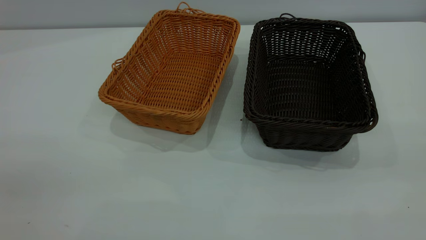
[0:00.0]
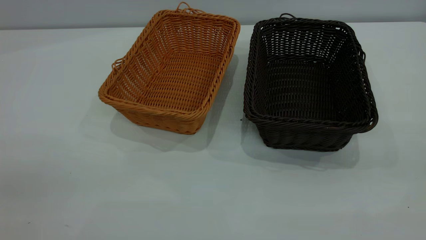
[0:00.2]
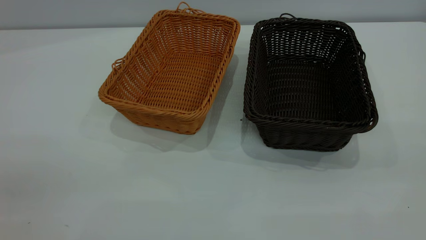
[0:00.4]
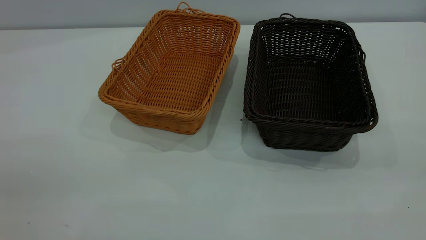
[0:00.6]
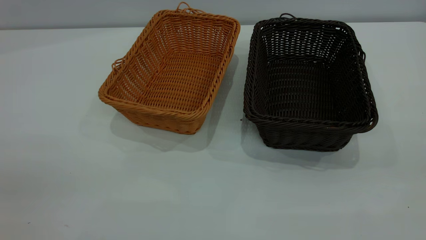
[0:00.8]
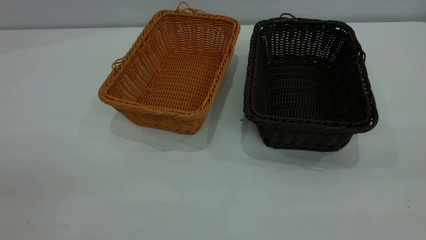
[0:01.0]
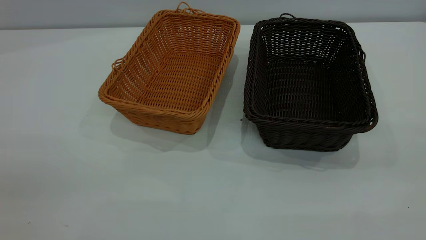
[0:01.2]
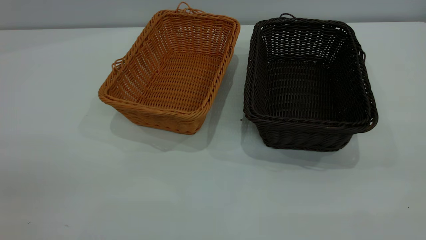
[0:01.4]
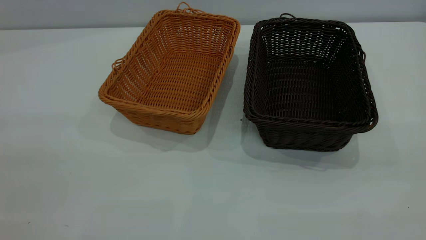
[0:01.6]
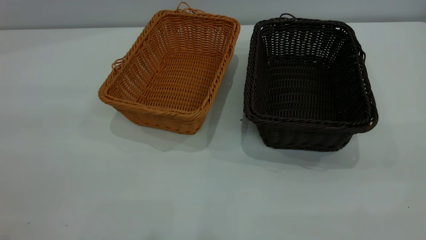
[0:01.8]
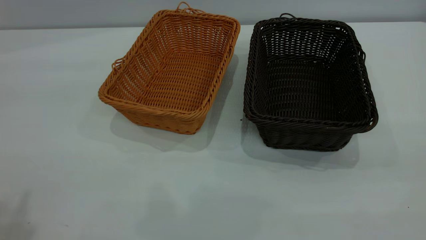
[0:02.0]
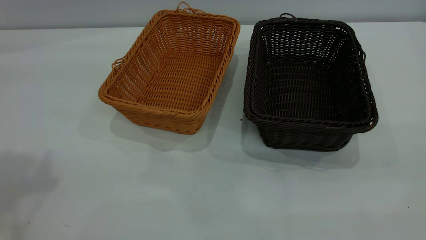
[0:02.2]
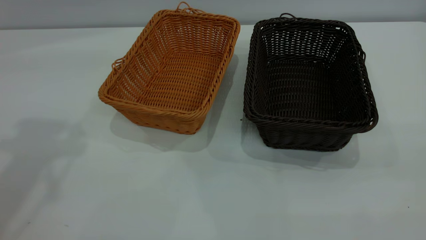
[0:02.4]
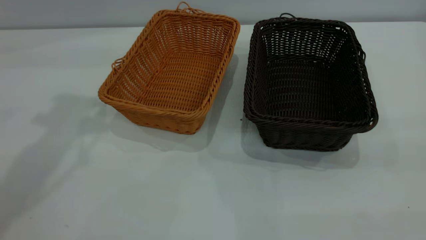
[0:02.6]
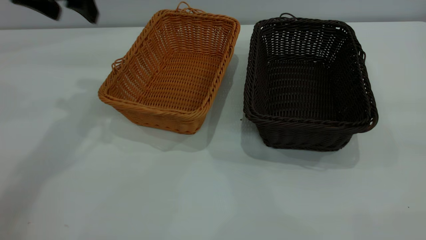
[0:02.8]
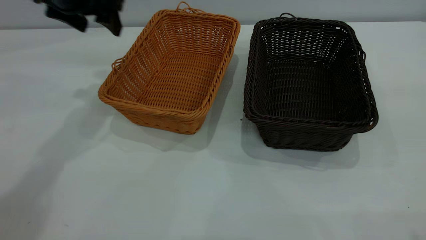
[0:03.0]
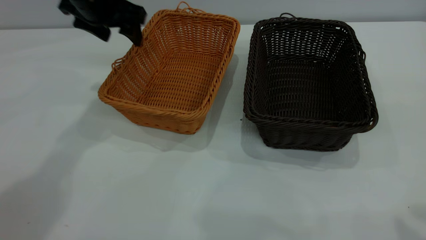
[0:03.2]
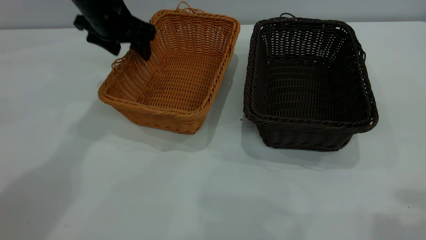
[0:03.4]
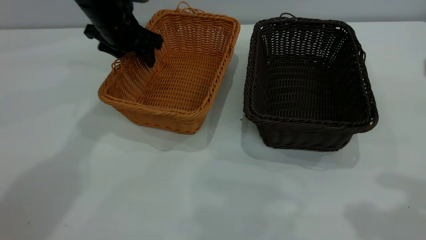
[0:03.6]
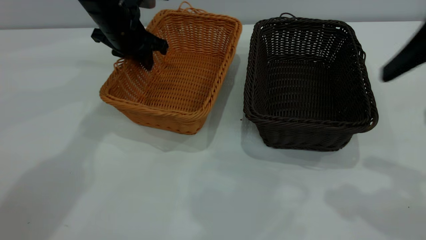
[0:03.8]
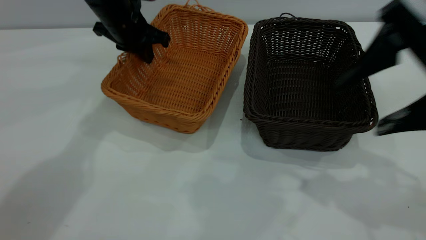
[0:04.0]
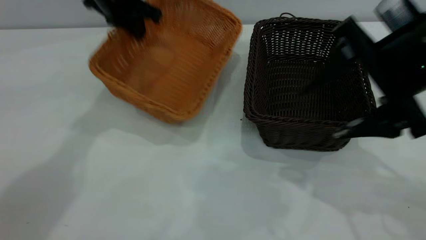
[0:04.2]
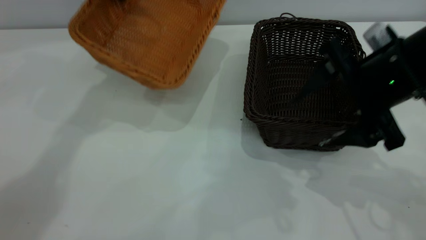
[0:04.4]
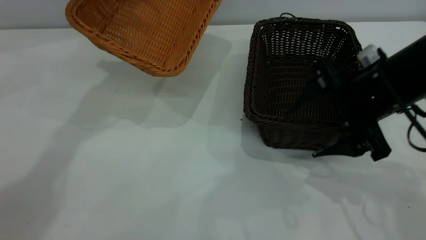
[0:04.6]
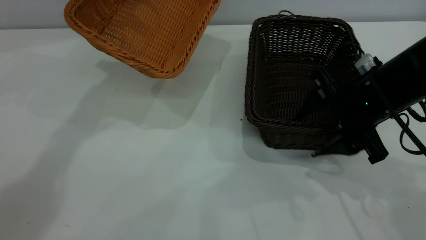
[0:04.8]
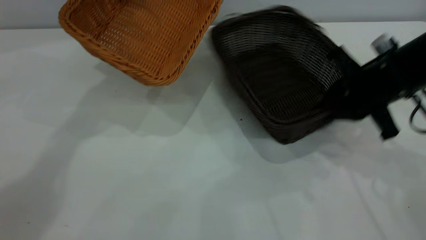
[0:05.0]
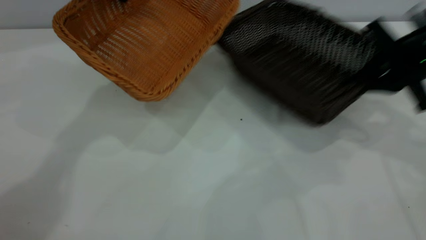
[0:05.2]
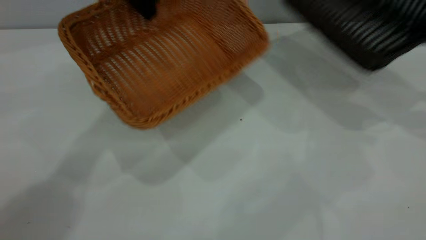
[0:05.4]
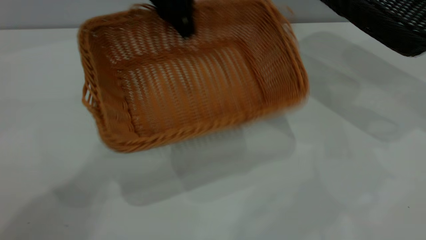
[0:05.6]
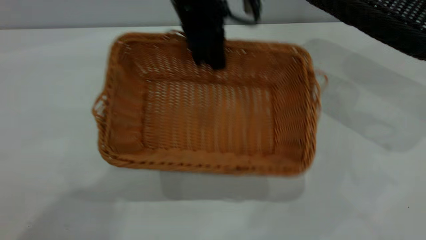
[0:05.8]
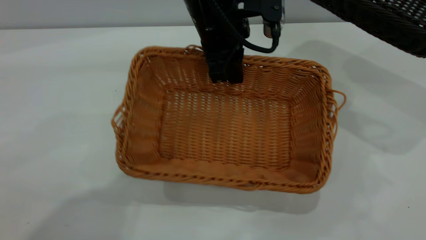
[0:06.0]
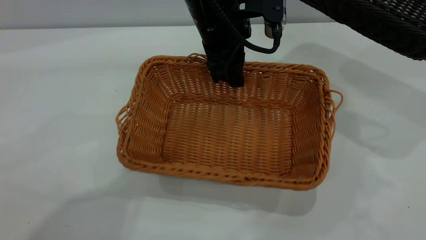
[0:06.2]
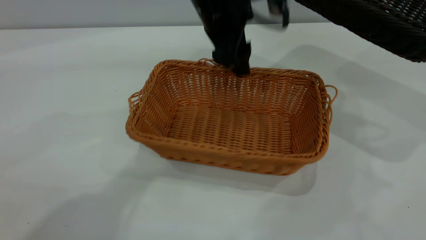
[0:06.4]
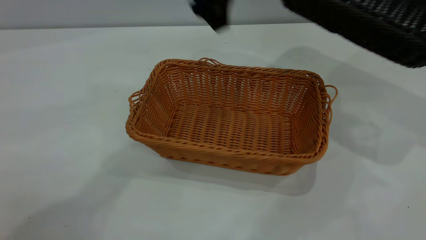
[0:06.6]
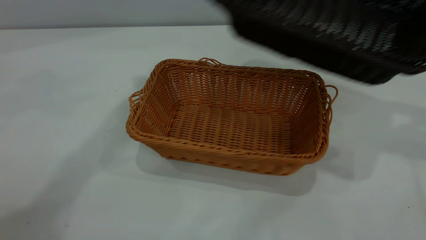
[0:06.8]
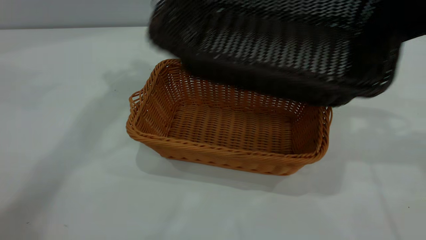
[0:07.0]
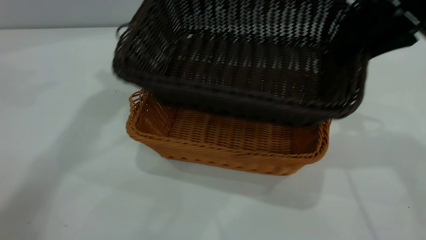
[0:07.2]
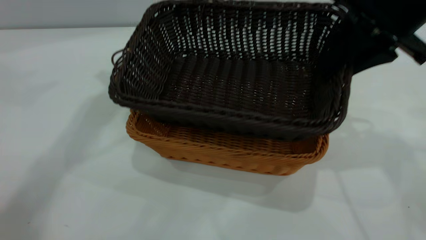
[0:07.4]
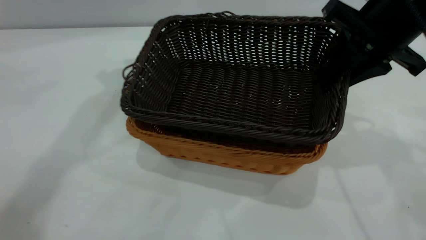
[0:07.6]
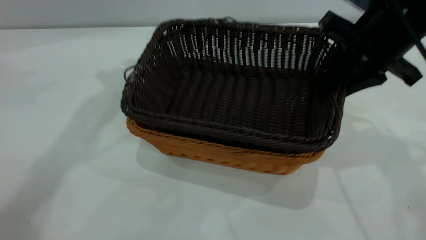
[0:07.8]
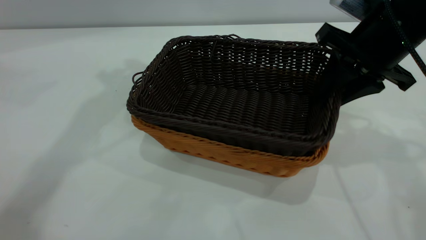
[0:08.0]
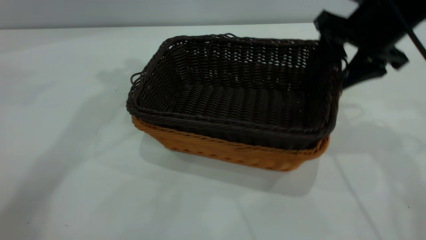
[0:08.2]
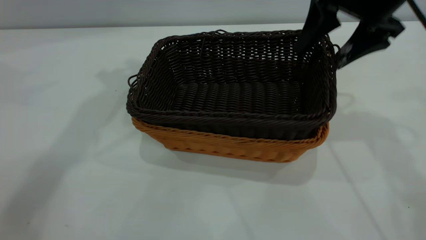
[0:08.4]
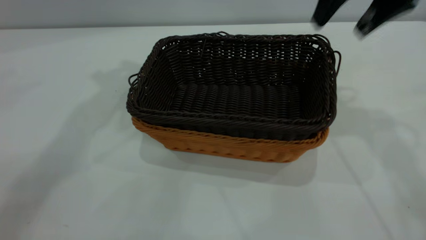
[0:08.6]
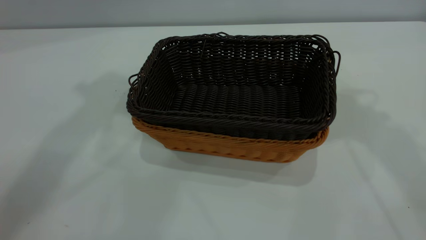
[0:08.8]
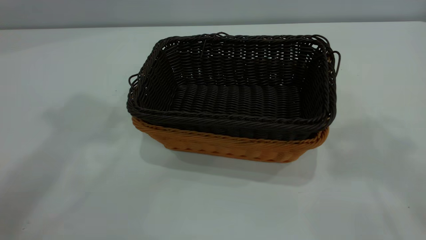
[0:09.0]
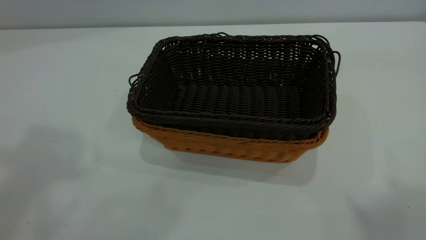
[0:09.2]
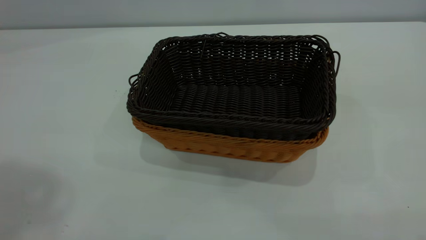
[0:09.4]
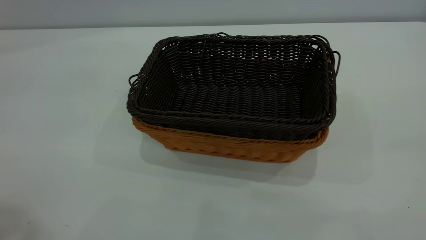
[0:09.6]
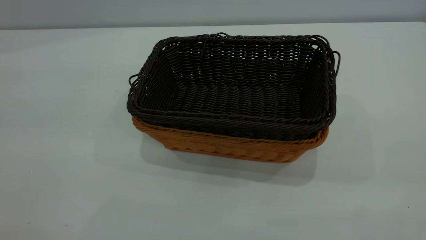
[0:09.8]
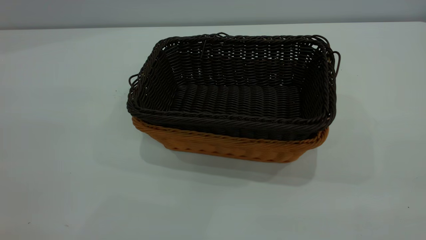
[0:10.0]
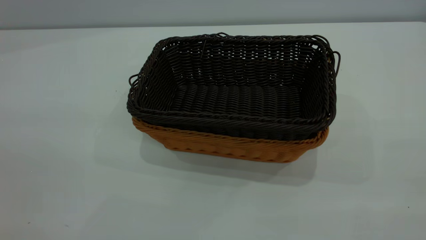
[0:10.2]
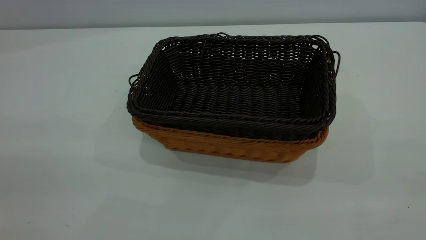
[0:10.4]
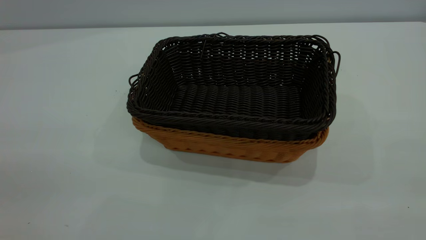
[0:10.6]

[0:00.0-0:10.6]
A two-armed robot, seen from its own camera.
Task of the whole recording: the left gripper grasp the brown basket and place it in the center of the table, the right gripper grasp the black basket and place it inside the brown one.
Step, 0:00.0 to 0:04.8: Pick up the light basket with the right gripper.
Step, 0:05.0 to 0:06.4: Place the light-colored basket in the center.
Step, 0:06.6 to 0:08.4: Place the dark basket on top of the light basket.
0:01.6 to 0:03.0: The left gripper travels forward and downward by about 40 cm.
0:03.0 to 0:04.6: The left gripper travels upward and forward by about 10 cm, and closes. The right gripper shifts some 30 cm downward and forward.
0:04.6 to 0:06.0: The left gripper travels to the right, backward and downward by some 25 cm. The right gripper is displaced to the right and upward by about 25 cm, and closes.
0:06.0 to 0:07.6: The left gripper heads upward and to the left, covering approximately 25 cm, and opens up; the right gripper is displaced to the left by approximately 20 cm.
0:07.6 to 0:09.0: The left gripper heads upward and backward, covering approximately 25 cm, while the right gripper moves upward, roughly 25 cm, and opens its fingers.

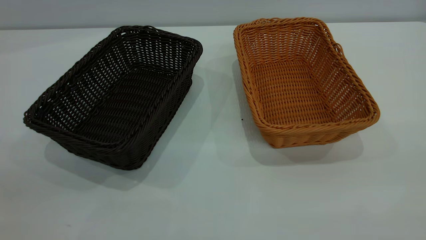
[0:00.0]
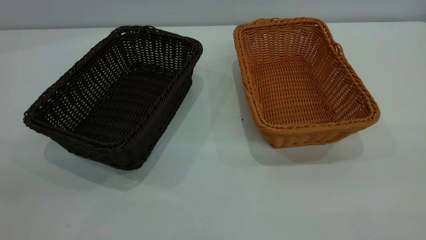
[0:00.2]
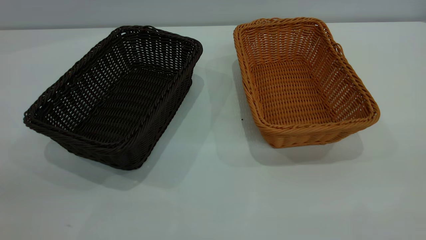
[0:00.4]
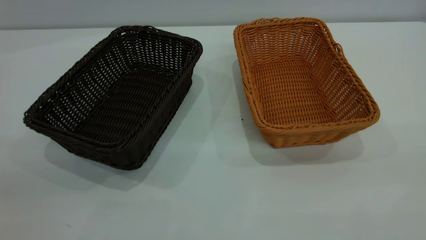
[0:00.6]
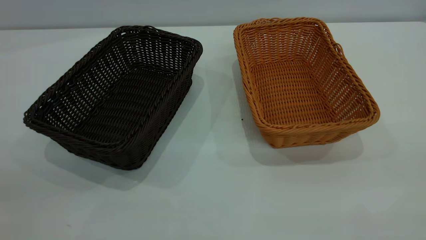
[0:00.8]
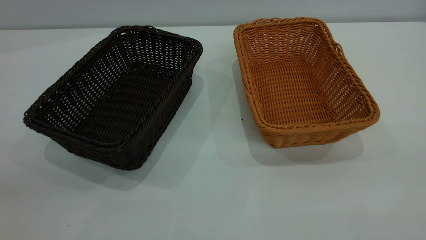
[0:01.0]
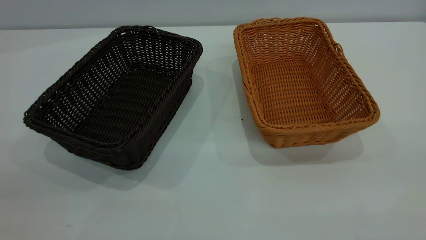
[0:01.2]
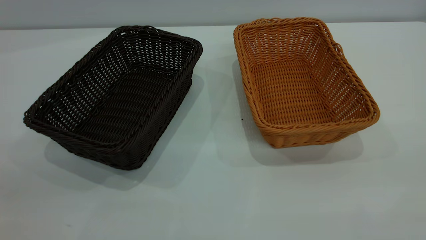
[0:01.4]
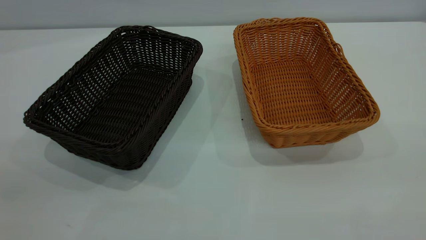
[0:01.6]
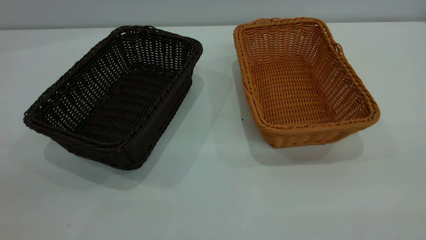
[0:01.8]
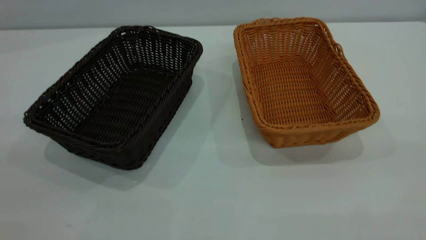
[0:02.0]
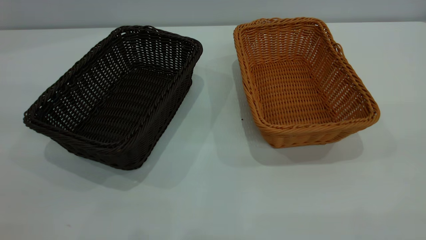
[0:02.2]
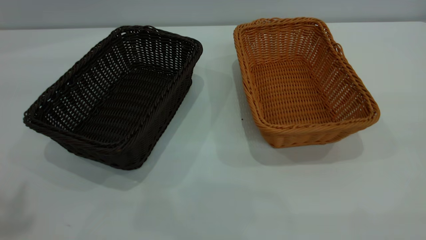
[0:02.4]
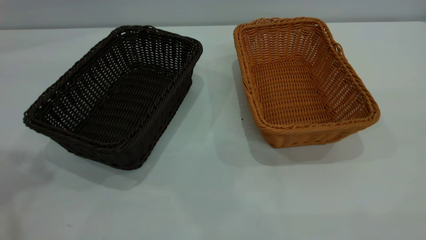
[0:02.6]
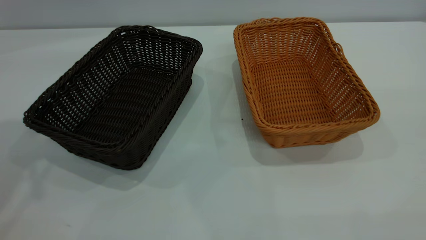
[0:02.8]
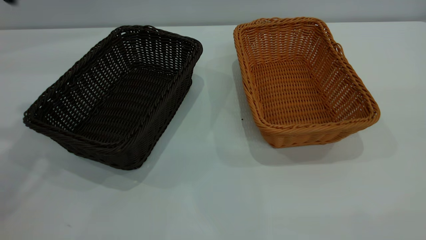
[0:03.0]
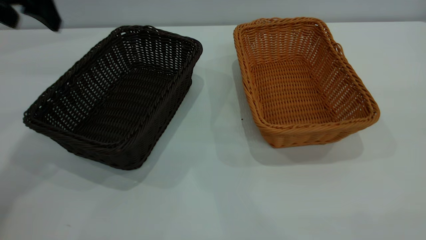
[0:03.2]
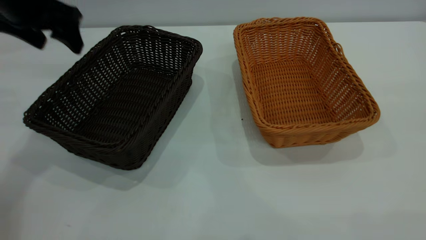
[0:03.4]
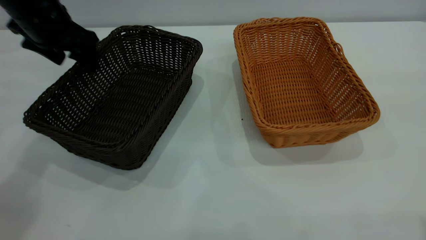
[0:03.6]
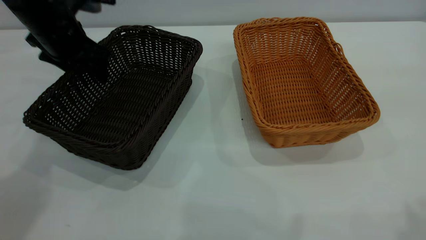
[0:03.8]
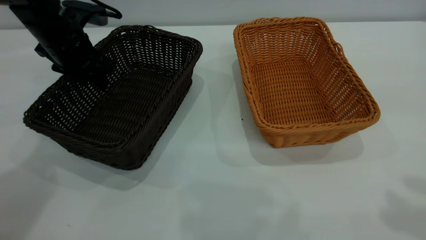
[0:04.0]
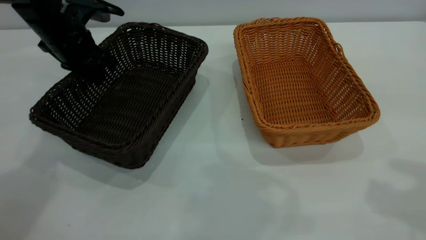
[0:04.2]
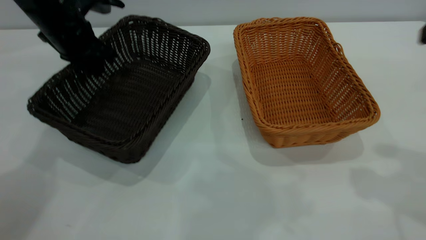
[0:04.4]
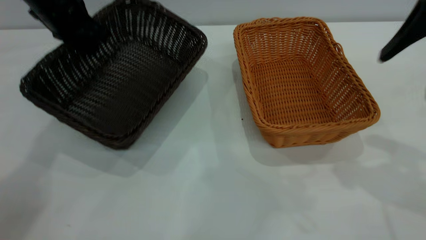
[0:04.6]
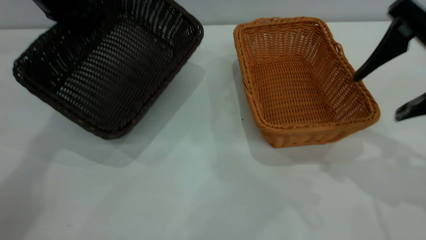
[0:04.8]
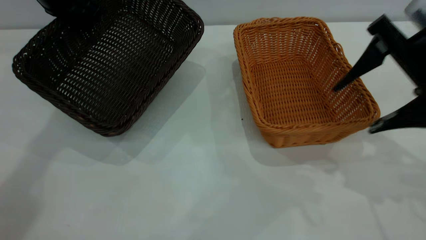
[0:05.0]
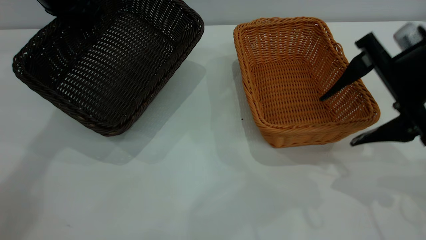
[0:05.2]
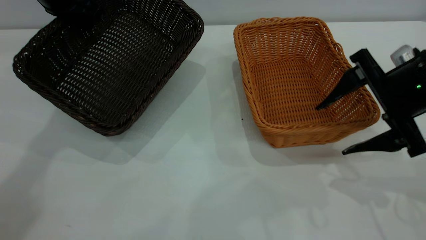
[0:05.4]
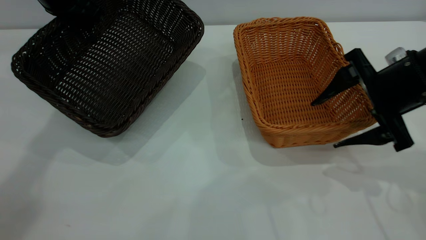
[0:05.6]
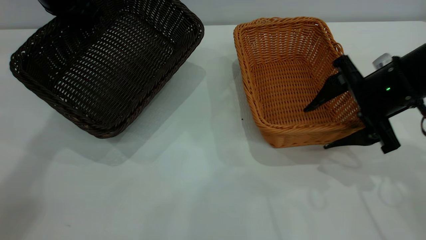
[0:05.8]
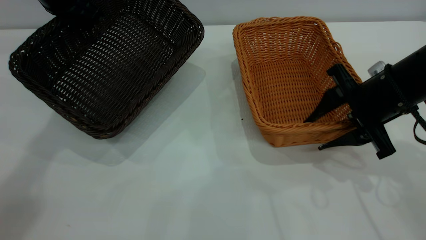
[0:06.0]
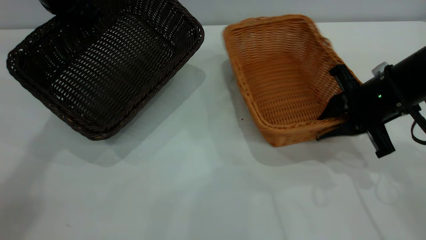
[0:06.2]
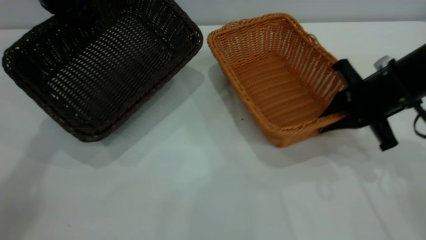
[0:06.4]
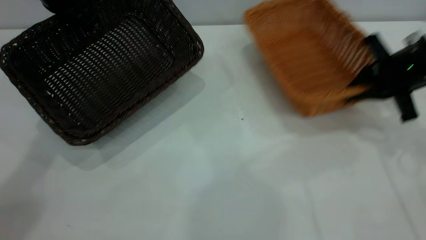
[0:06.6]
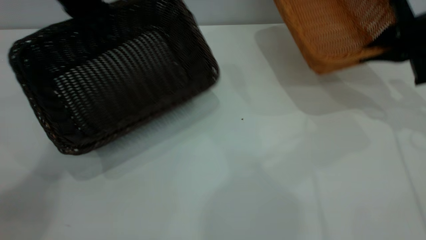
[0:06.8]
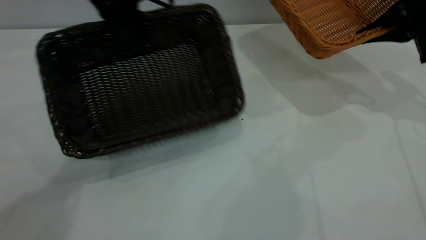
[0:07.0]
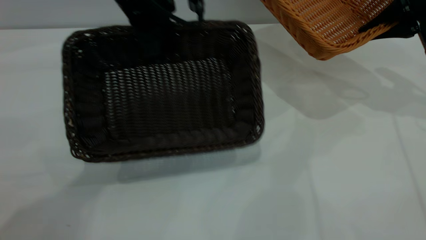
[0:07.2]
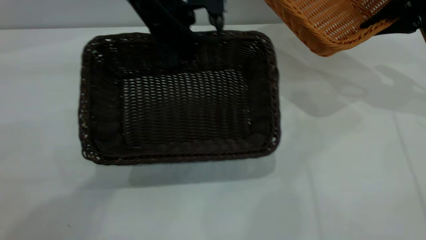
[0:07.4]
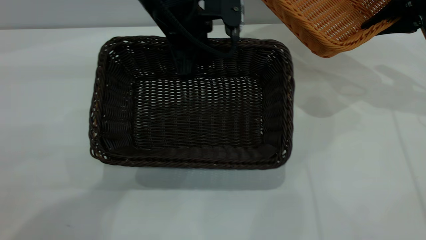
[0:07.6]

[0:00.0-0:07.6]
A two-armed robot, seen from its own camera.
Task of the whole recording: the left gripper grasp the black basket and place it in the center of the table, the right gripper grasp the brown basket and place it inside the black one.
Step, 0:00.0 to 0:06.4: Pick up the light basket with the right gripper.
0:00.0 to 0:01.6: Neither gripper changes place.
0:03.0 to 0:04.6: The left gripper heads downward and forward, covering some 15 cm, and closes; the right gripper goes some 25 cm forward and downward.
0:04.6 to 0:06.0: The right gripper moves downward, some 15 cm, and closes its fingers.
0:06.0 to 0:07.6: The right gripper travels forward, to the right and upward by some 20 cm, and closes up; the left gripper travels to the right by approximately 20 cm.
